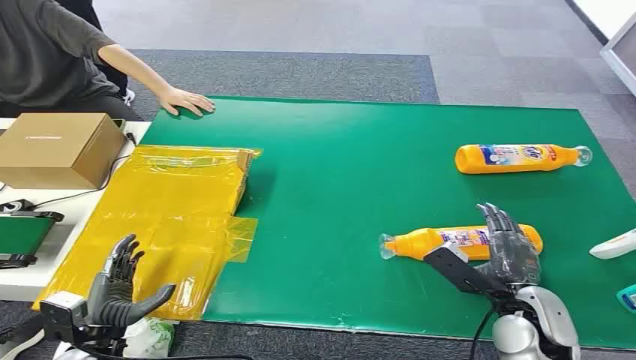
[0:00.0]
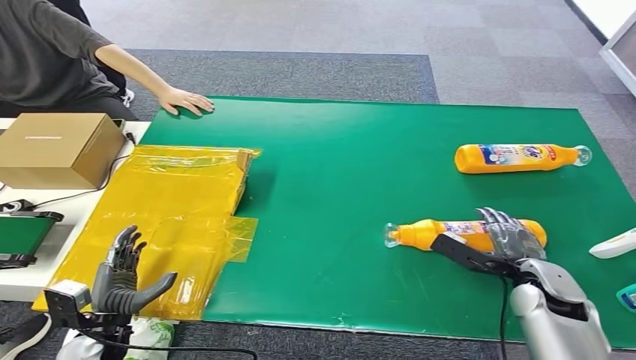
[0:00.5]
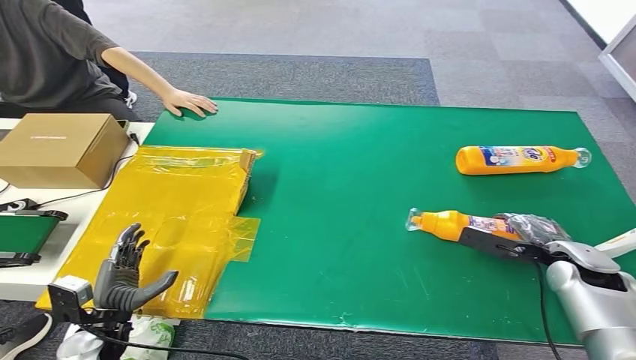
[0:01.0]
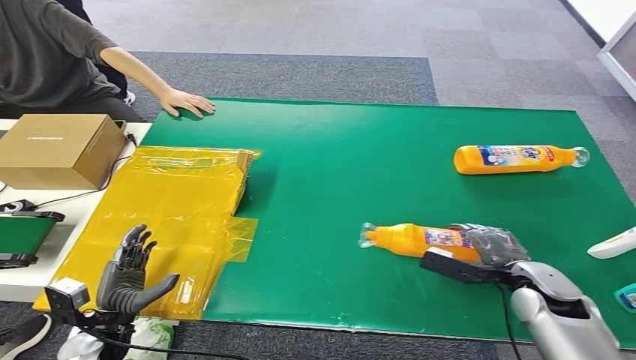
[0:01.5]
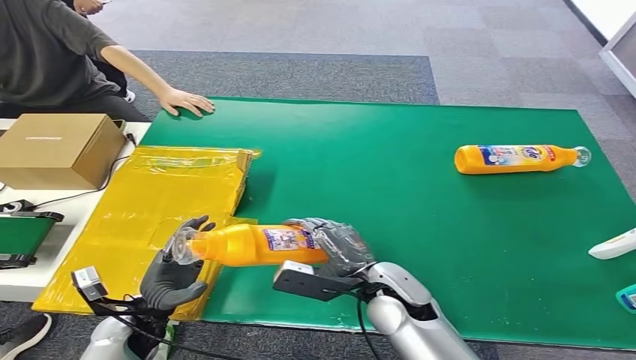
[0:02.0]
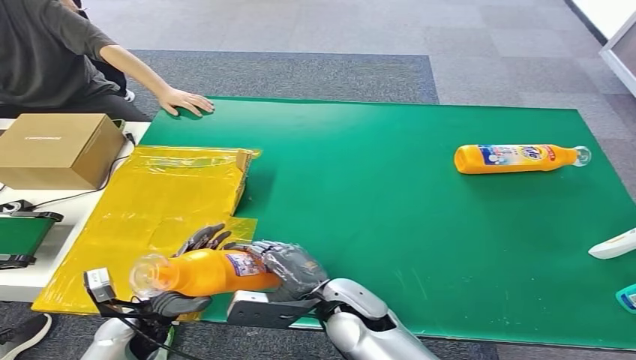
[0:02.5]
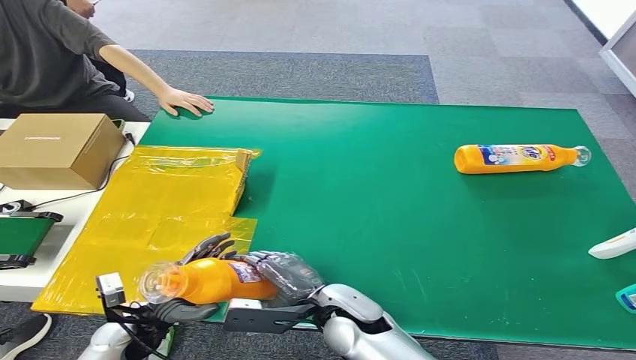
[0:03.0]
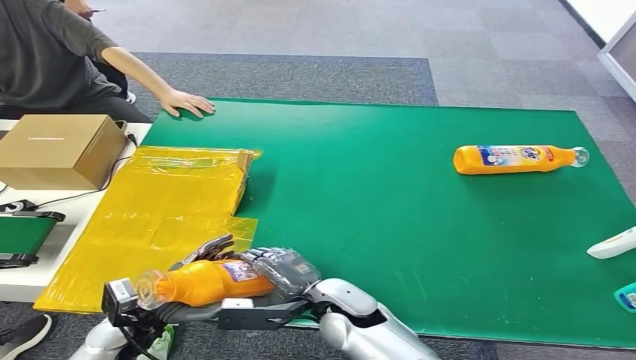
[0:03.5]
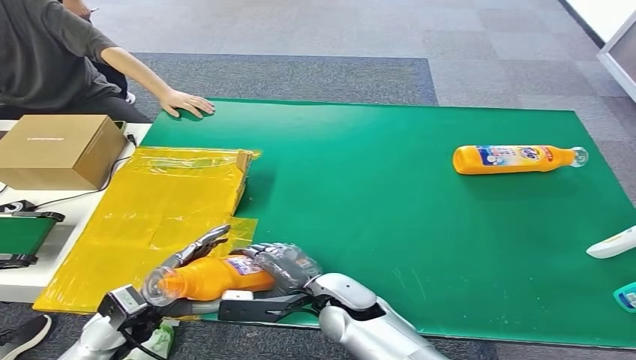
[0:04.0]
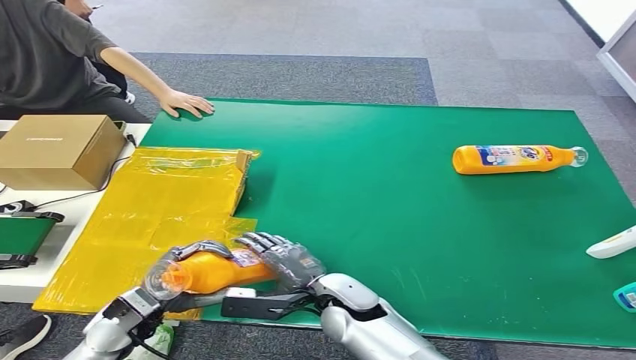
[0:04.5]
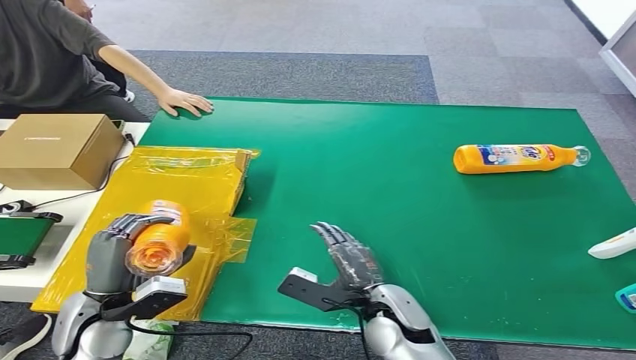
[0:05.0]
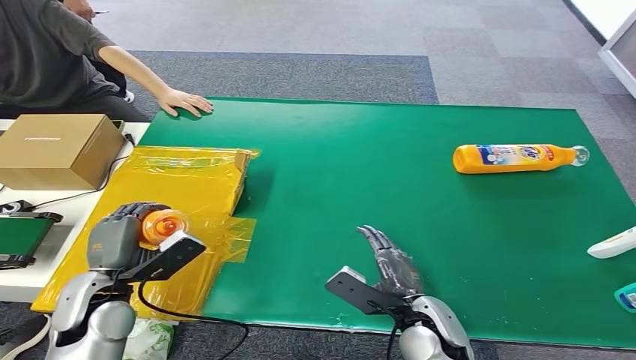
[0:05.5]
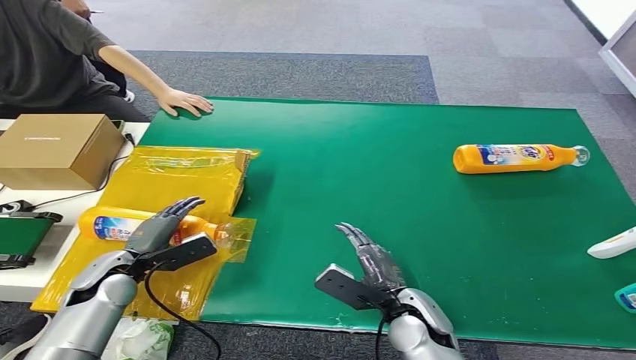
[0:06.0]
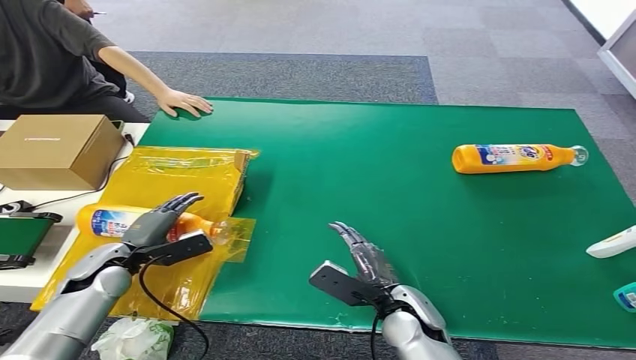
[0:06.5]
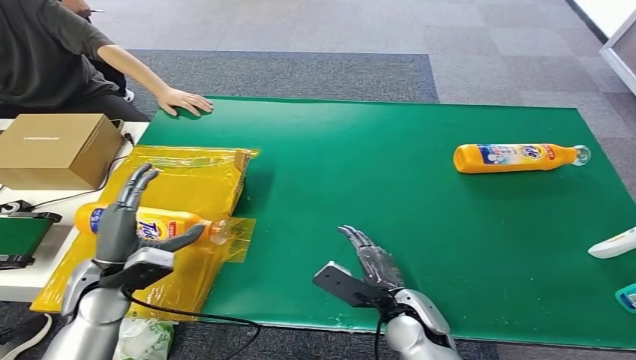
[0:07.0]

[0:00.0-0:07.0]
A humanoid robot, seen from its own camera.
Step, 0:00.0 to 0:01.5: Pick up the bottle from the table.
Step, 0:02.0 to 0:07.0: Turn the bottle to the front side.
0:02.0 to 0:03.5: The right hand moves to the left, about 5 cm.
0:03.5 to 0:05.0: The right hand is displaced to the right by roughly 5 cm, while the left hand is displaced upward by about 10 cm.

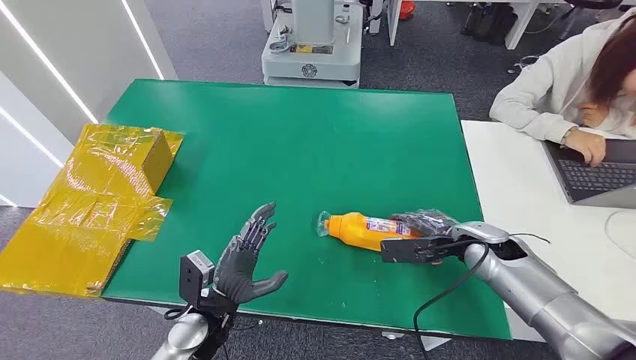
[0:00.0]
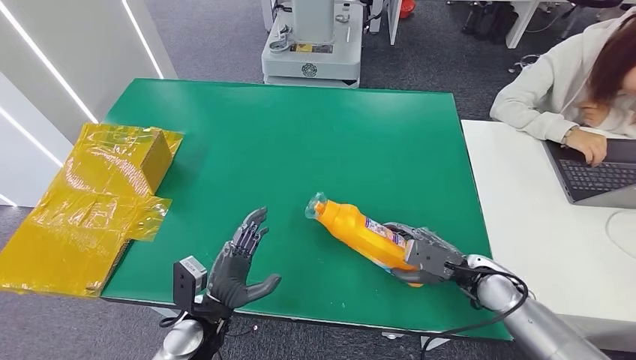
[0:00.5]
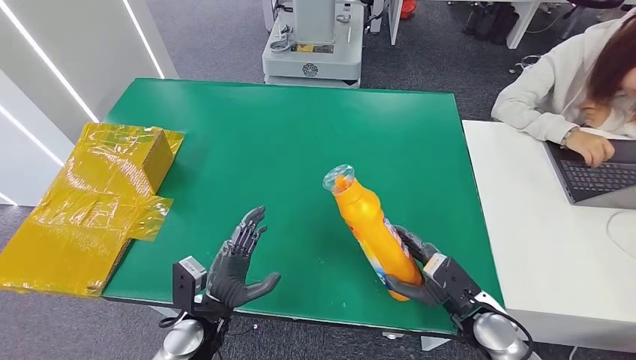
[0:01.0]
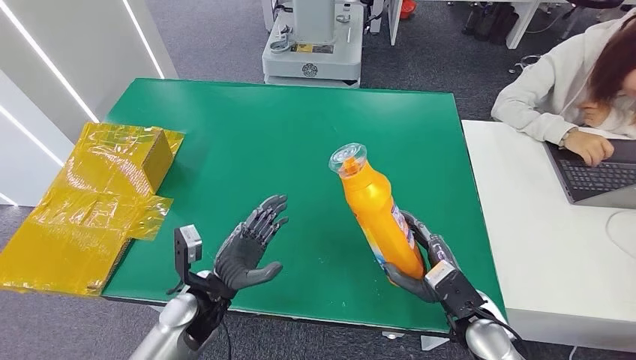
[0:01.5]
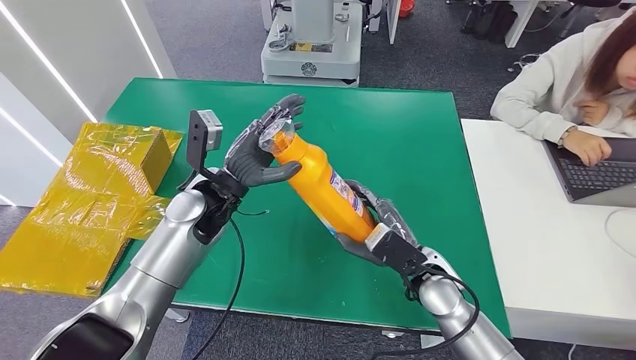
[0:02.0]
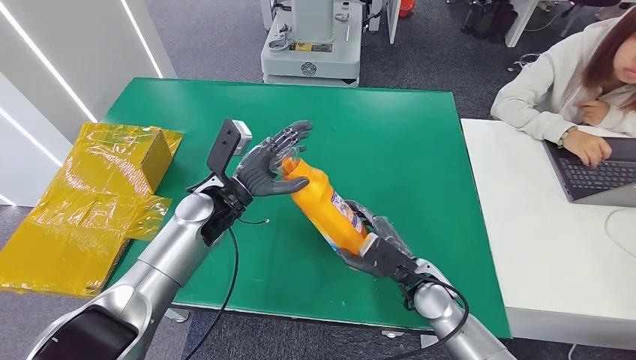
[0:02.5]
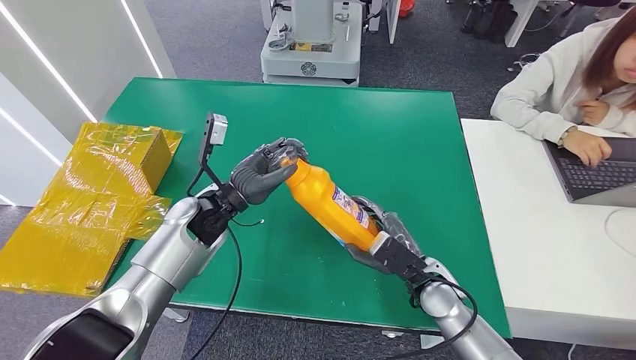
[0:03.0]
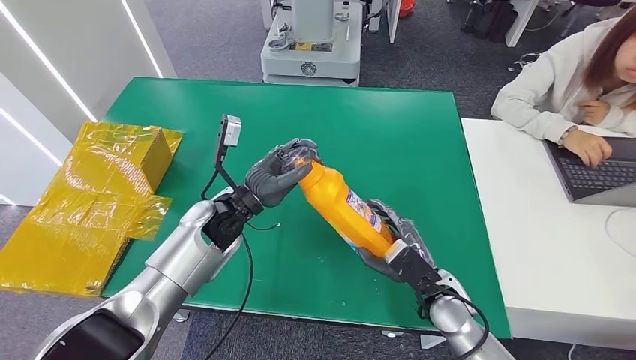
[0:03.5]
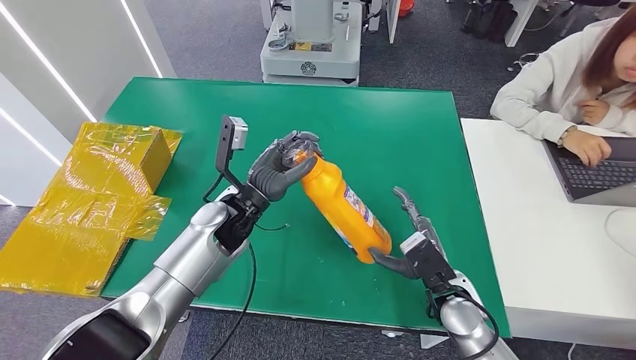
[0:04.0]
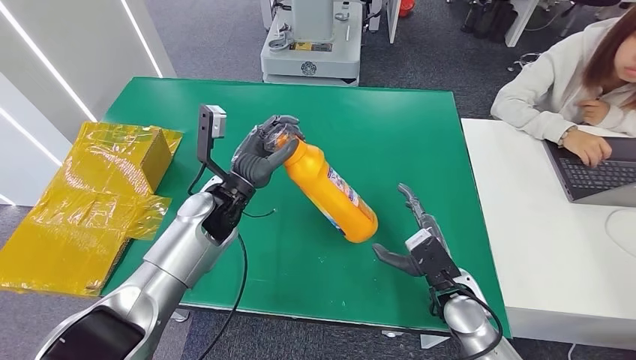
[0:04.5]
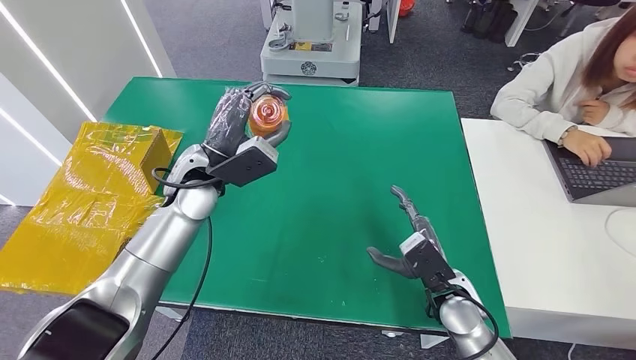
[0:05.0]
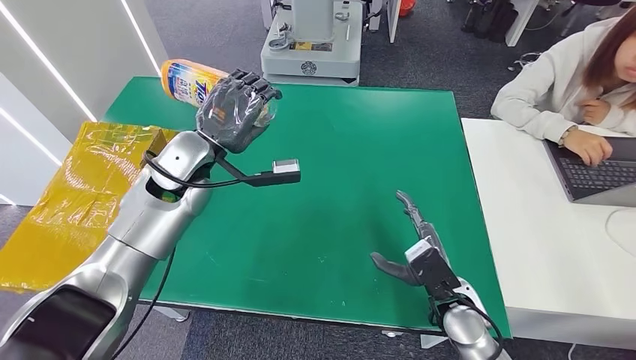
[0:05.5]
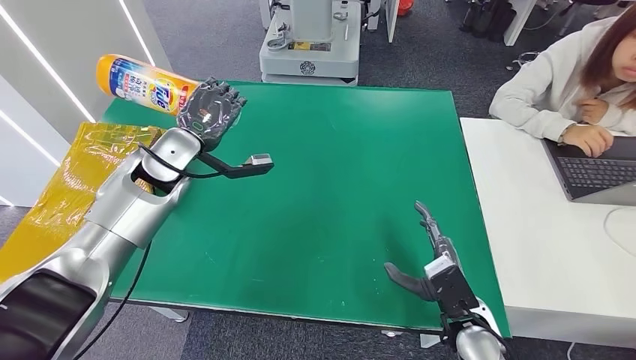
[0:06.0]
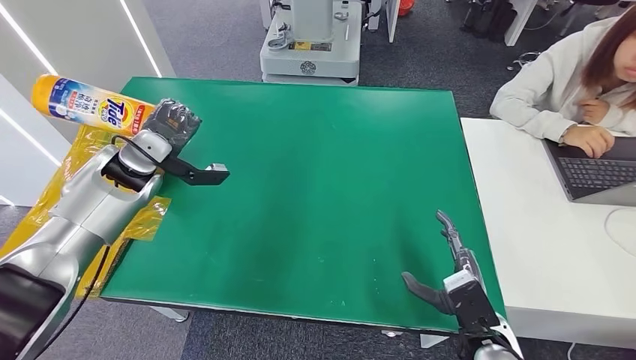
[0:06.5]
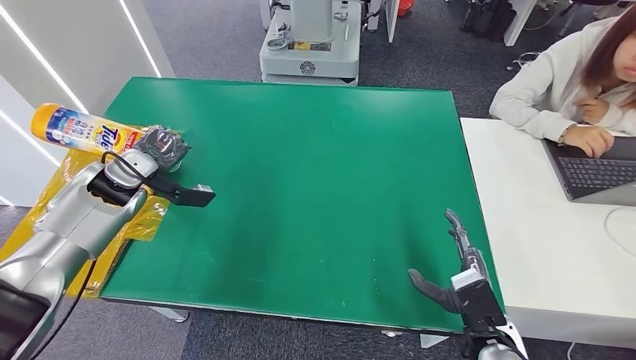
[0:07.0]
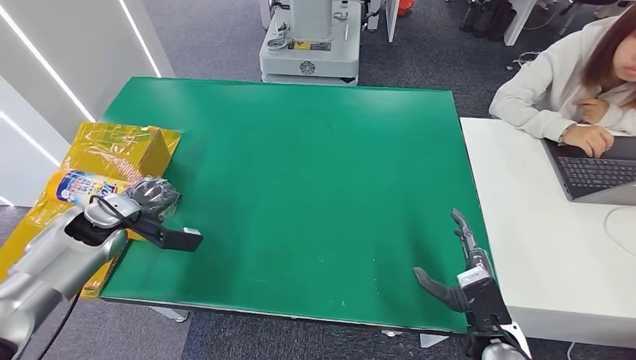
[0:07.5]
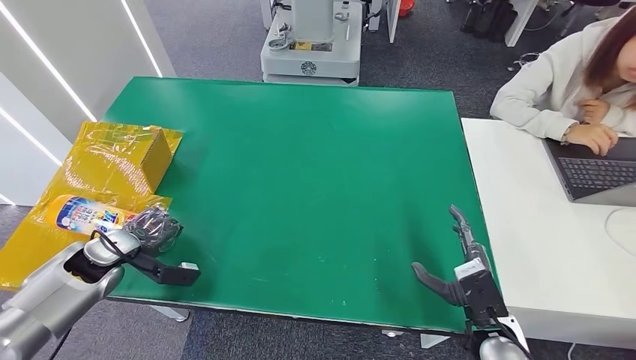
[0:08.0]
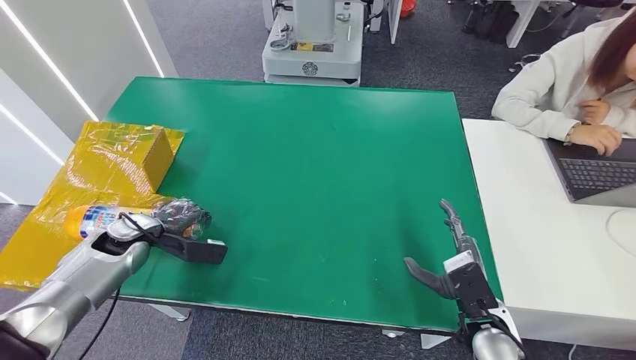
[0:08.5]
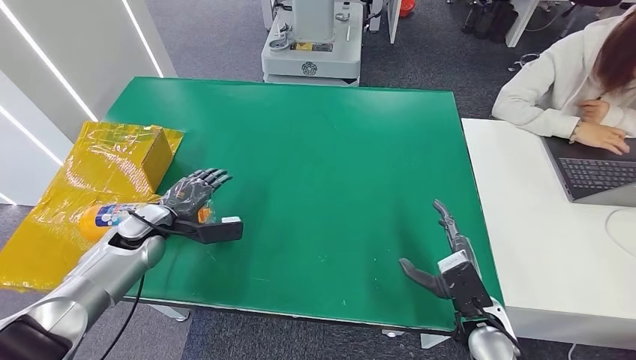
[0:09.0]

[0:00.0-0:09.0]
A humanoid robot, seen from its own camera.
Step, 0:00.0 to 0:01.5: Pick up the bottle from the table.
Step, 0:02.0 to 0:09.0: Turn the bottle to the front side.
0:02.0 to 0:04.5: The right hand shifts roughly 5 cm to the right.
0:07.0 to 0:09.0: The left hand is displaced downward by roughly 10 cm.

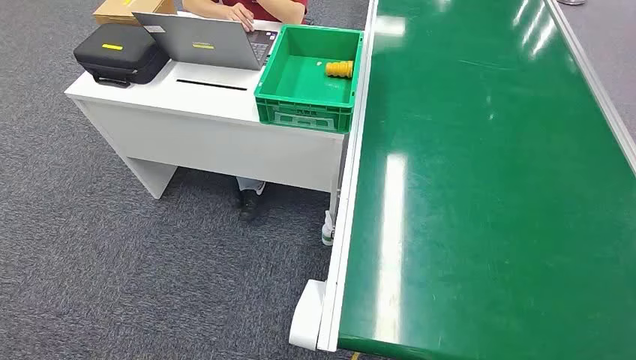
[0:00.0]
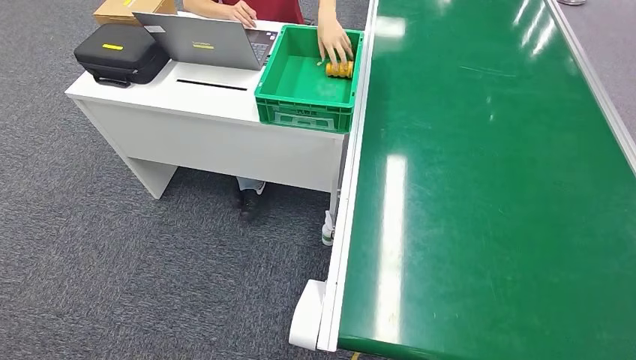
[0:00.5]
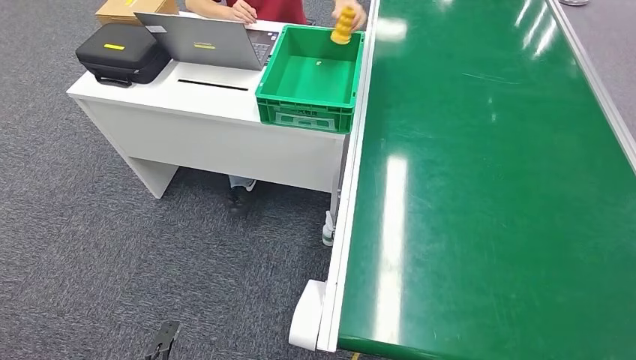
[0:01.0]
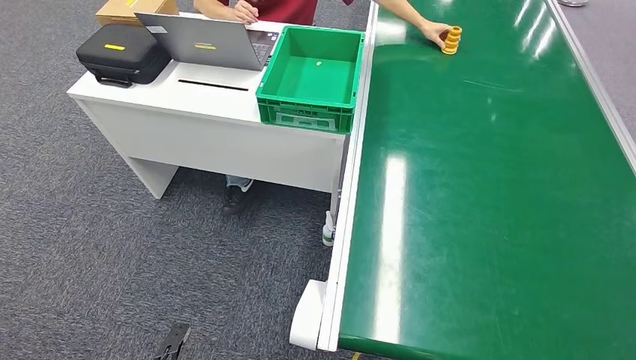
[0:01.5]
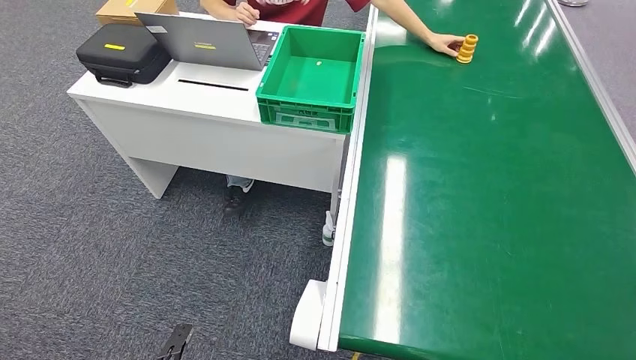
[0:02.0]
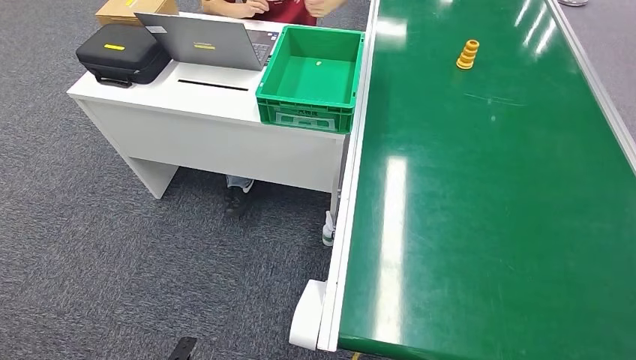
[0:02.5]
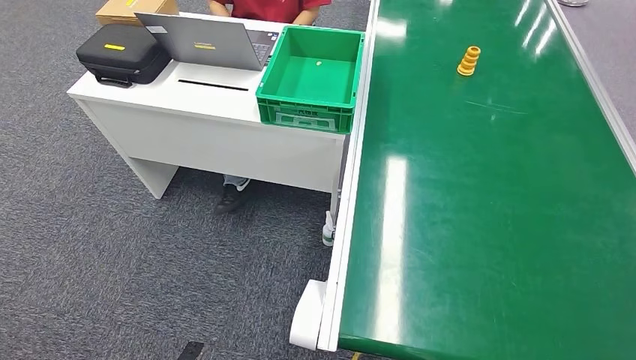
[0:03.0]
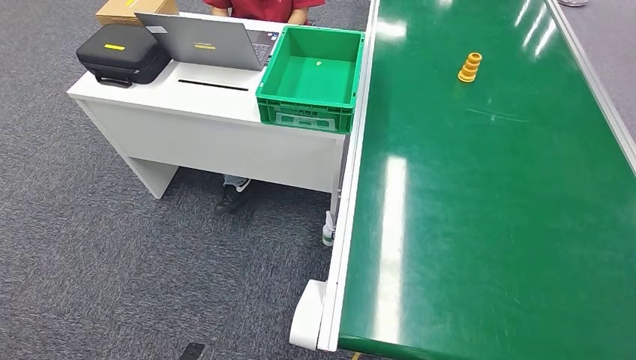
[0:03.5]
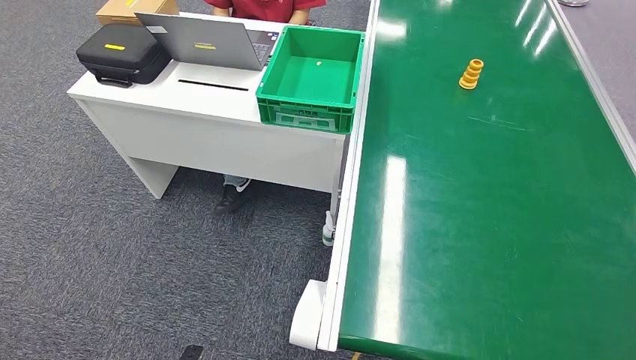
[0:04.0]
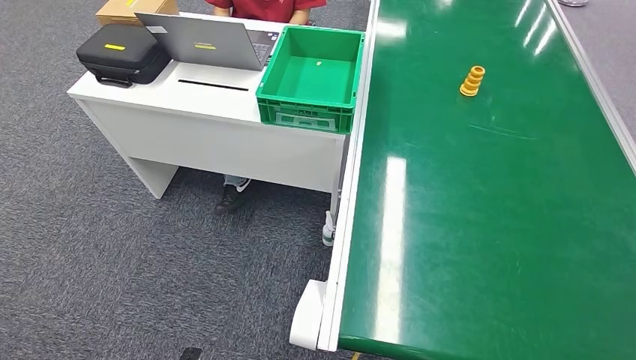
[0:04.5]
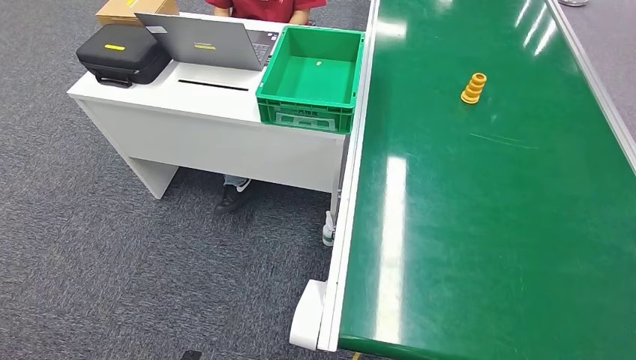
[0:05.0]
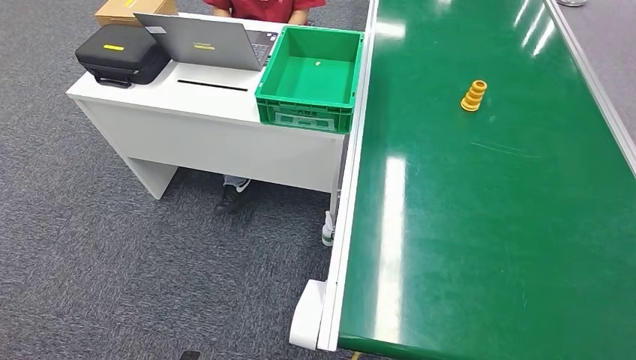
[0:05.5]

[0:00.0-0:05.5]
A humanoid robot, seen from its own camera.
0:03.5 to 0:05.5: The right hand goes approximately 15 cm to the right and upward.
